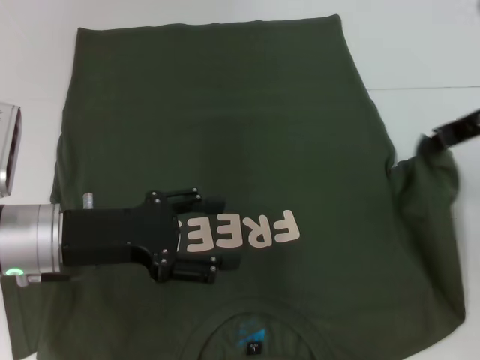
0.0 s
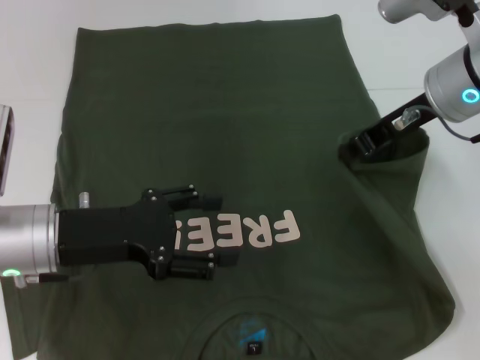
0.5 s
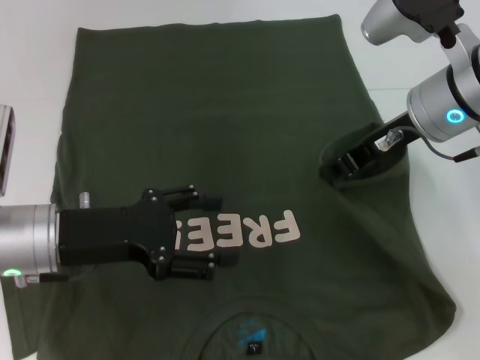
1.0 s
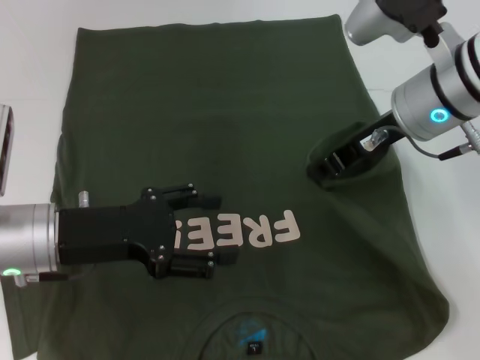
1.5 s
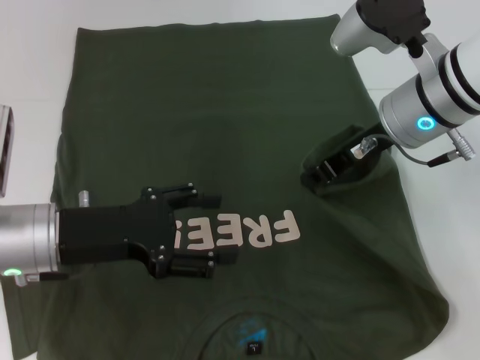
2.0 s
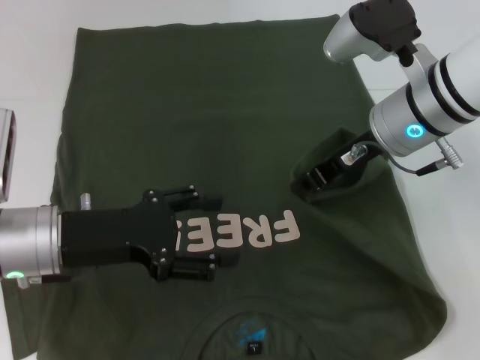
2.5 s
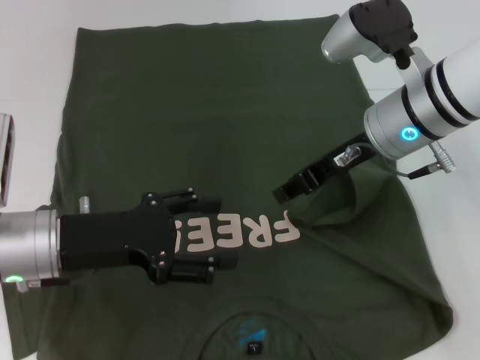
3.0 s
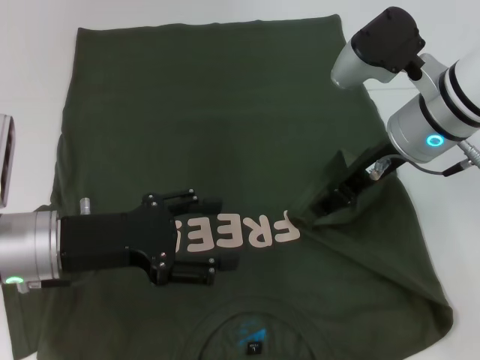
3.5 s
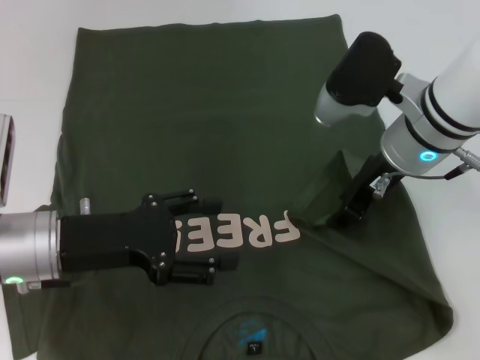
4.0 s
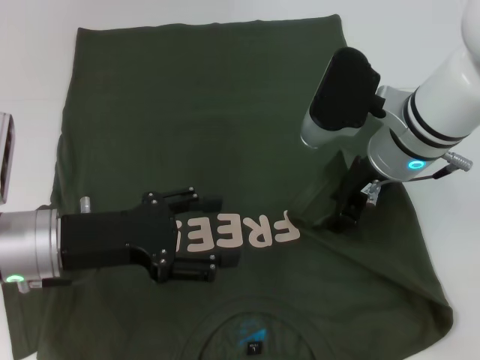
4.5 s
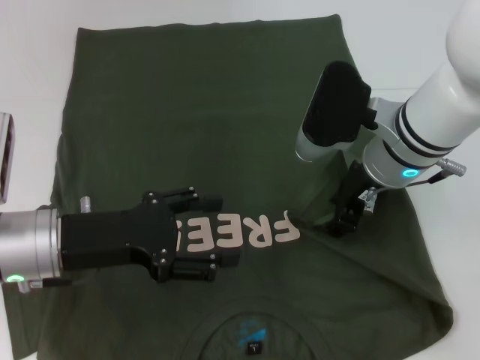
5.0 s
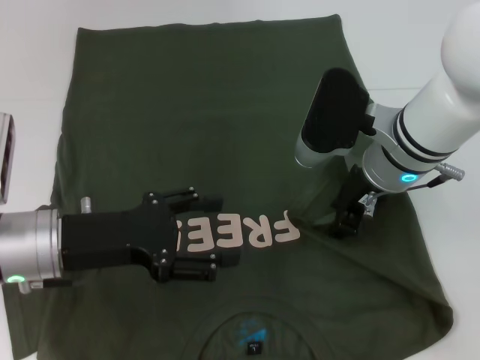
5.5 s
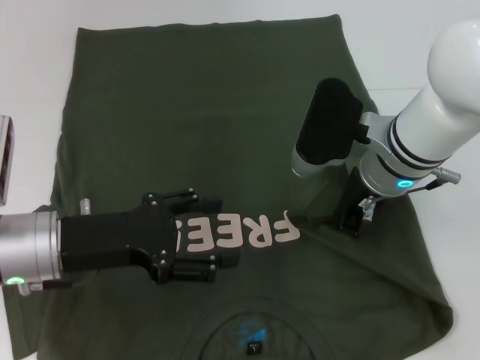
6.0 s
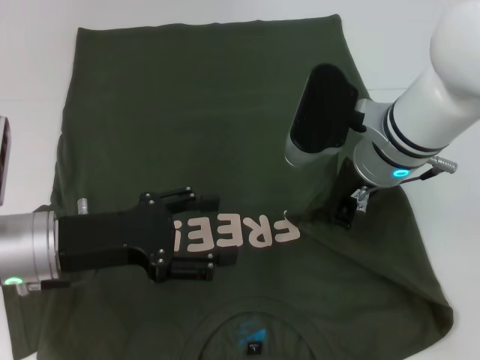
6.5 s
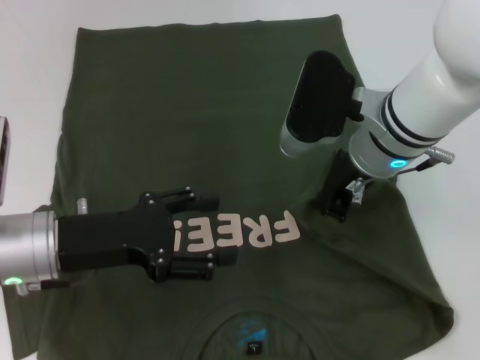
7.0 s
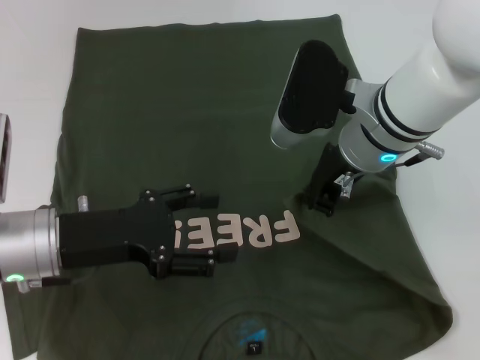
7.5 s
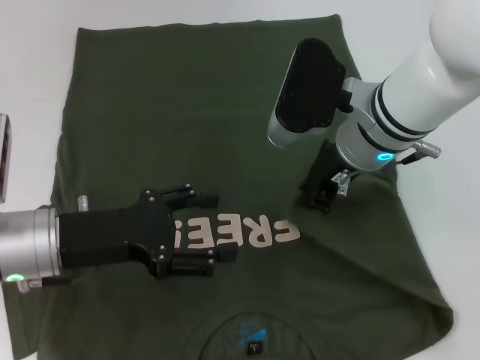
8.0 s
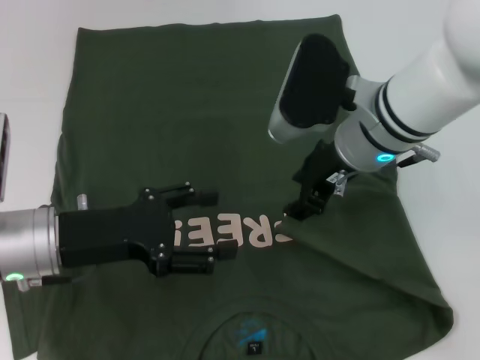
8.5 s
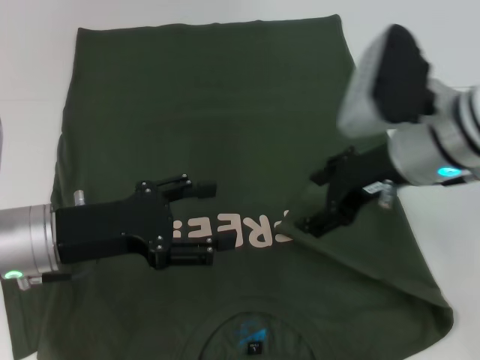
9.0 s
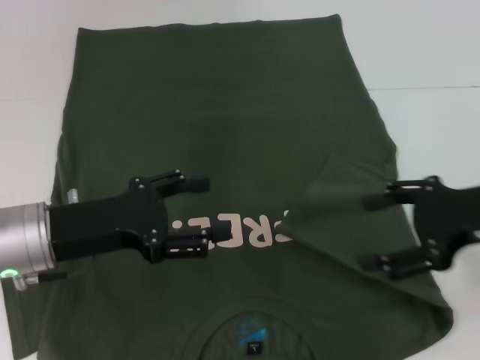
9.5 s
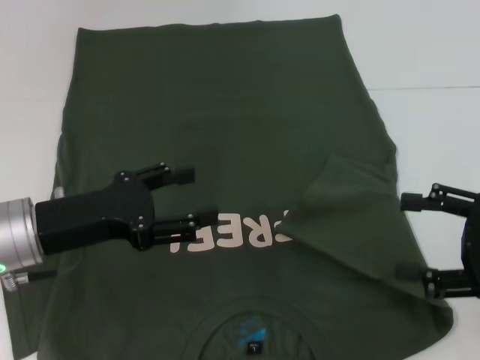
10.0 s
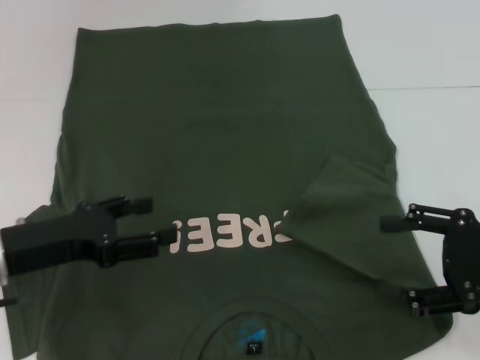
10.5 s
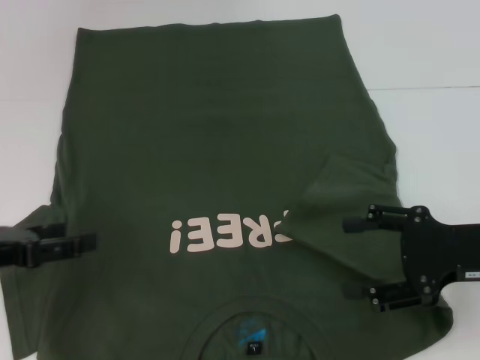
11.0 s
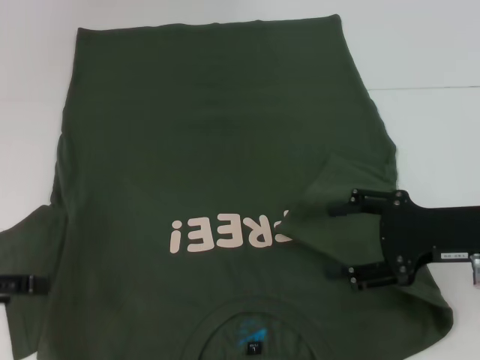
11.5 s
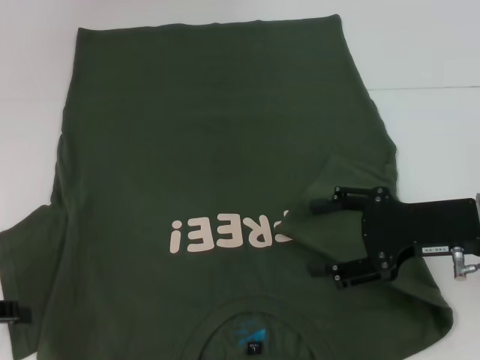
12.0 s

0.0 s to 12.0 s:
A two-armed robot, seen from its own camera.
Step, 0.0 to 8.5 s: Fold the bottom right sleeve with your right hand.
0.0 to 2.0 s: The right gripper is displaced to the left by some 10 cm.
2.0 to 4.0 s: The right gripper opens.
4.0 to 6.0 s: The right gripper closes up.
6.0 to 8.0 s: The grippers make only small movements.
8.0 to 10.0 s: The right gripper goes some 25 cm to the right and backward, and opens up.
10.0 to 12.0 s: The right gripper heads to the left and forward, covering roughly 10 cm; the left gripper is displaced to the left and backward by about 15 cm.

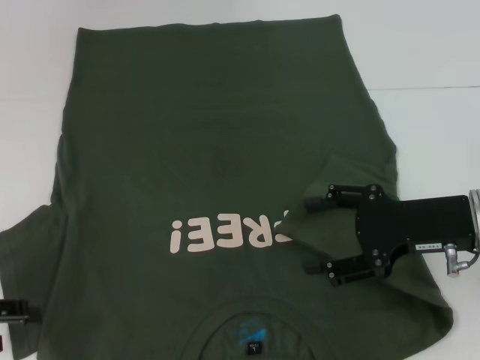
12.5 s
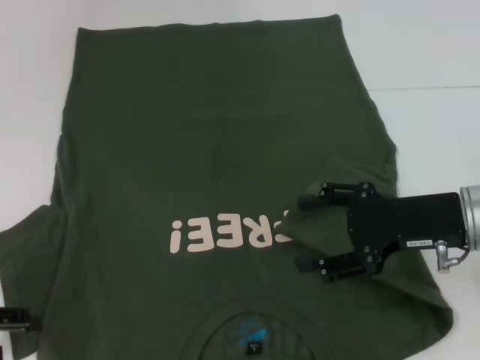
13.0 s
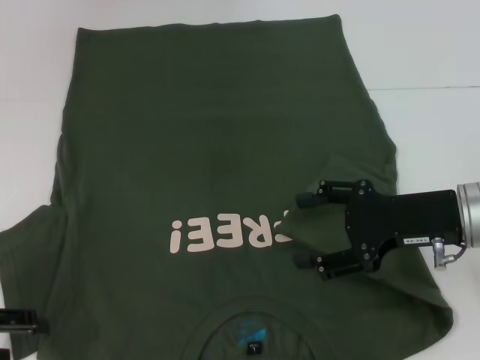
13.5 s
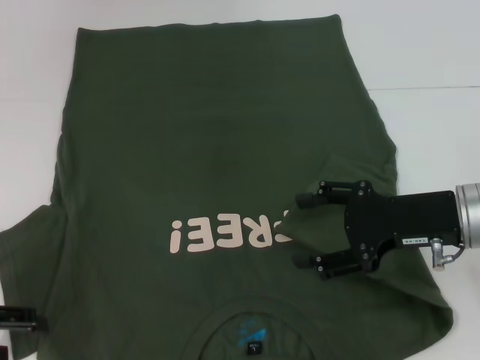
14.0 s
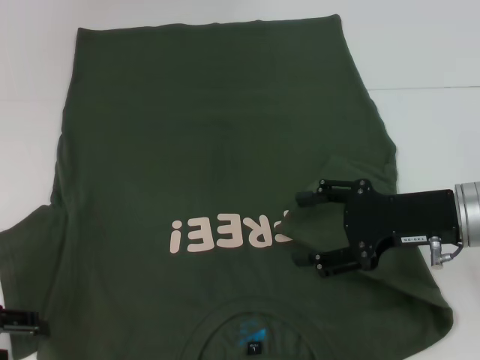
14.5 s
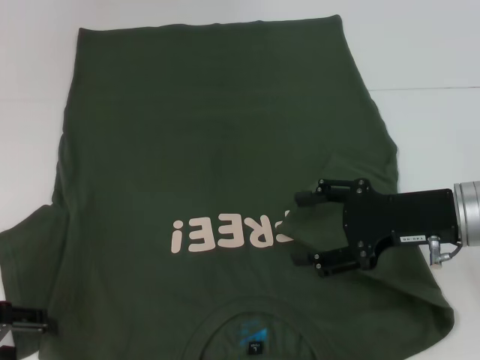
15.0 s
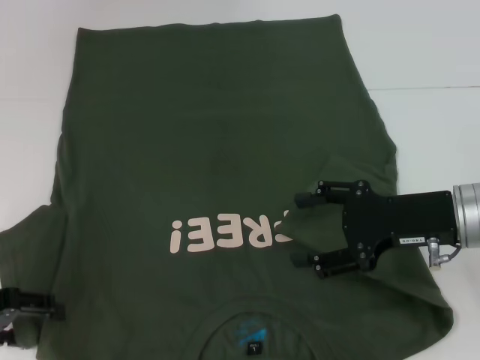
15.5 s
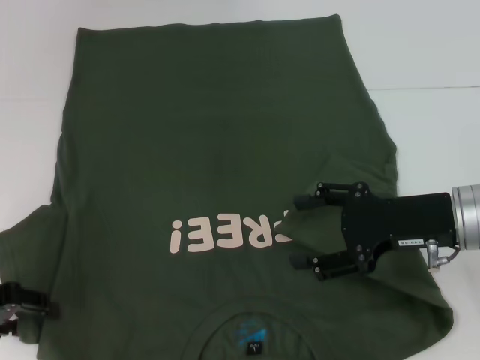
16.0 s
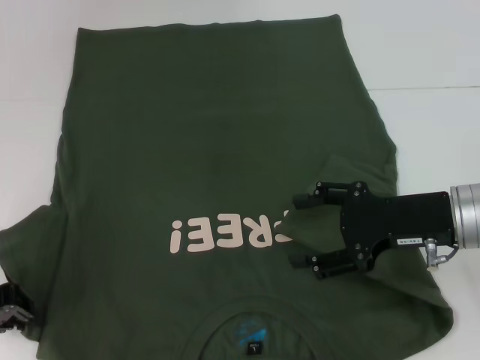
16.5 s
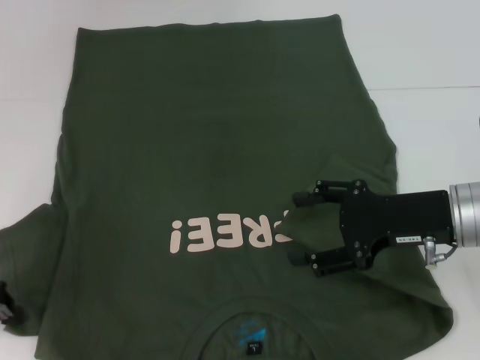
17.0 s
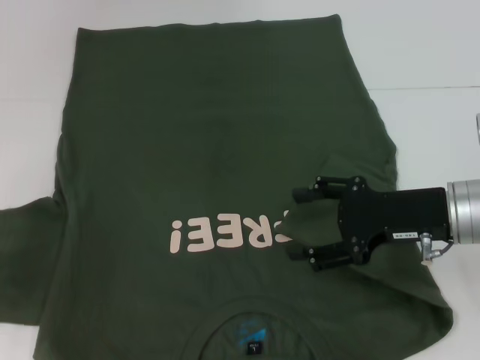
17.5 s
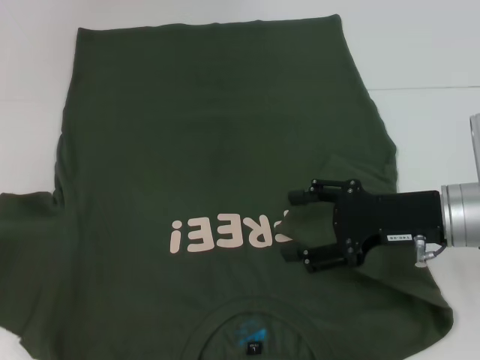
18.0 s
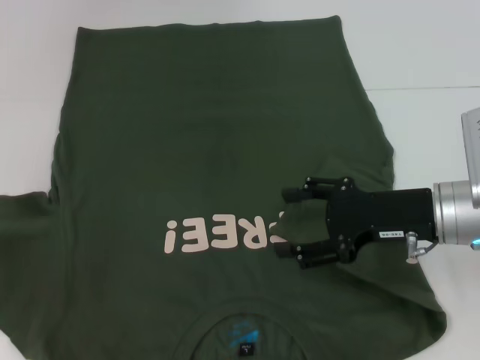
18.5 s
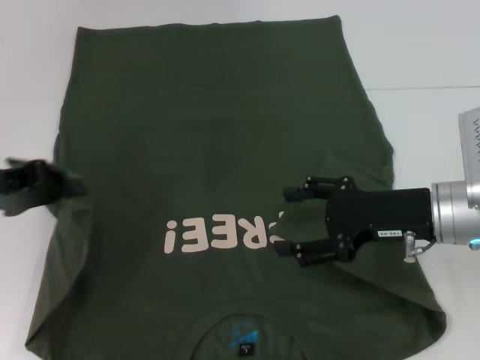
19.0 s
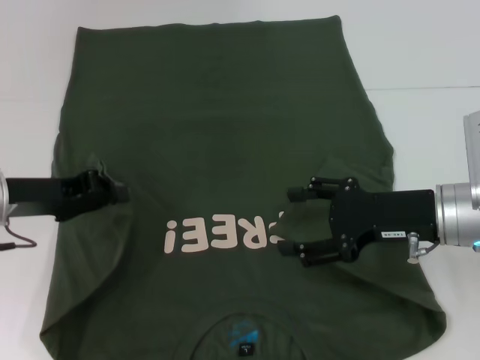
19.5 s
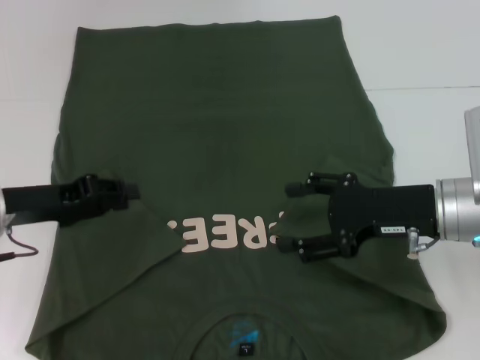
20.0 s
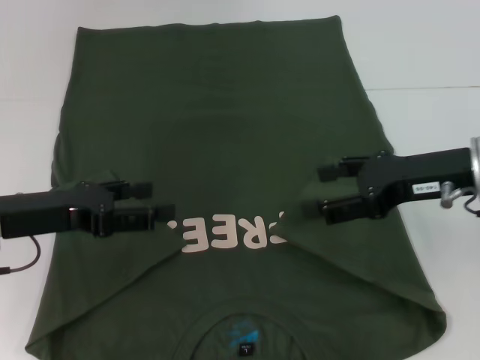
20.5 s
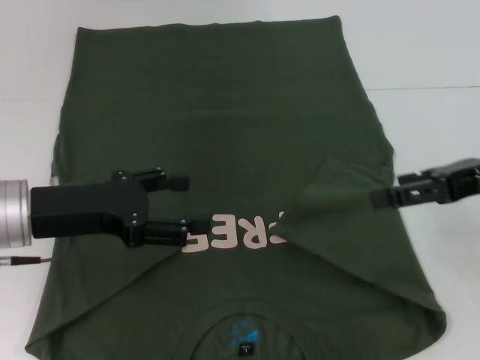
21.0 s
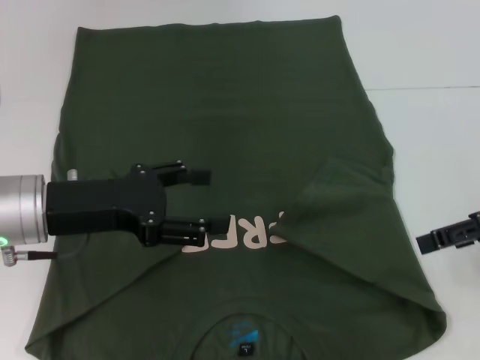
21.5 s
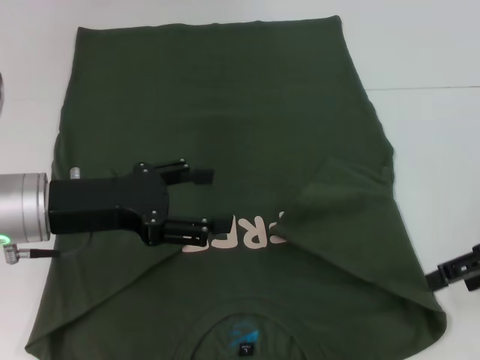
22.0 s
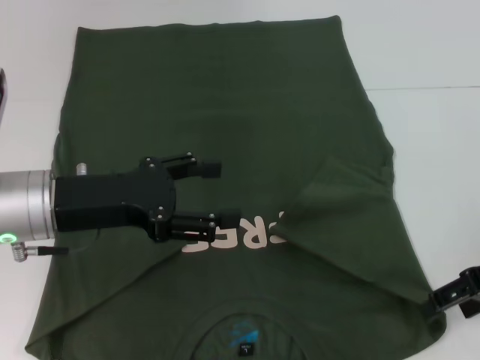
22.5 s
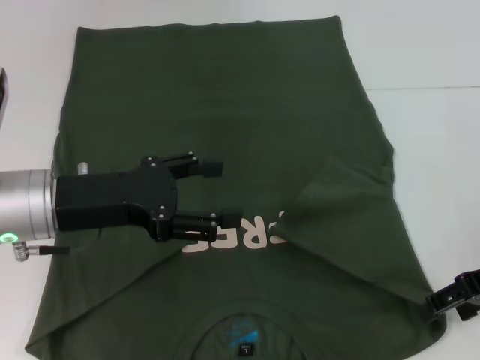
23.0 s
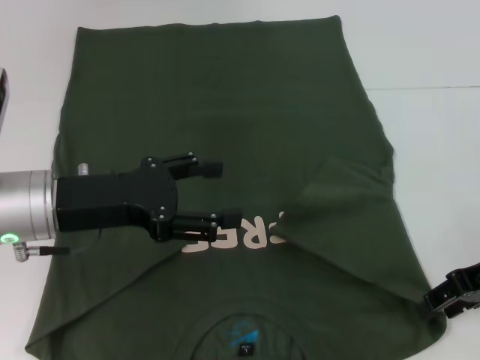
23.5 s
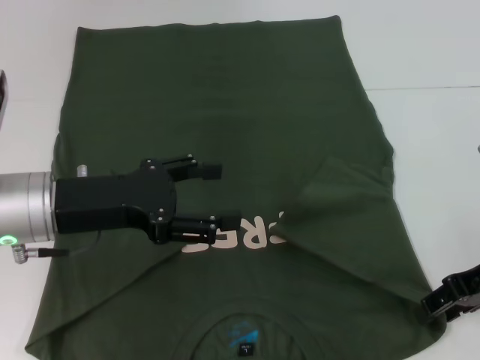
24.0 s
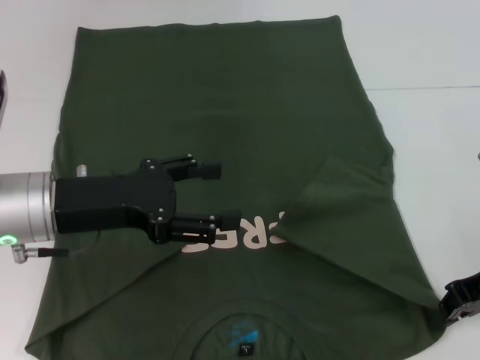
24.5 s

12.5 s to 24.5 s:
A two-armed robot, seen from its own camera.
Step, 12.5 to 20.0 s: Fold the bottom left sleeve with your left hand.
12.5 to 14.5 s: The grippers stay close to where they were, moving slightly.
14.5 to 16.5 s: The left gripper closes.
16.5 to 18.5 s: The left gripper travels to the left by approximately 5 cm, and closes.
18.5 to 20.5 s: The left gripper travels to the right by about 15 cm, and opens up, while the right gripper shifts approximately 5 cm upward.
20.5 to 22.5 s: The two grippers go roughly 5 cm to the right.
22.5 to 24.5 s: The right gripper closes its fingers.

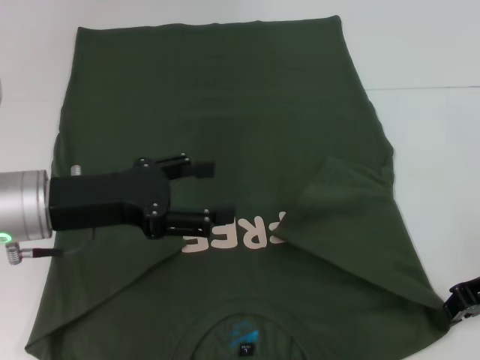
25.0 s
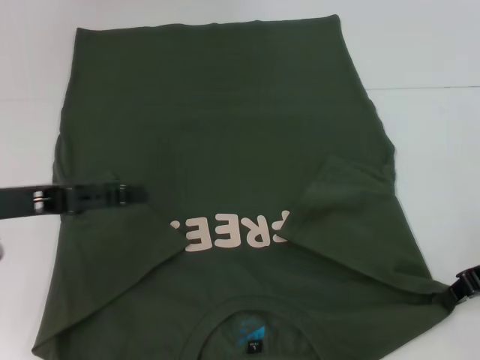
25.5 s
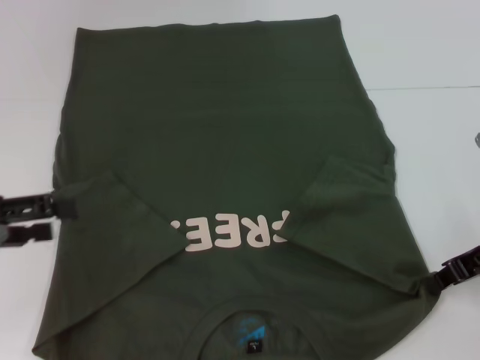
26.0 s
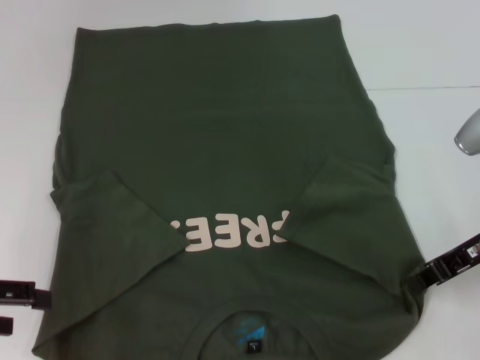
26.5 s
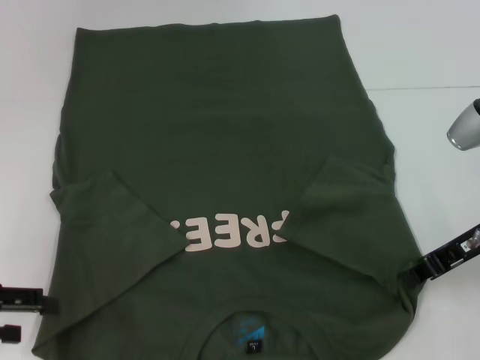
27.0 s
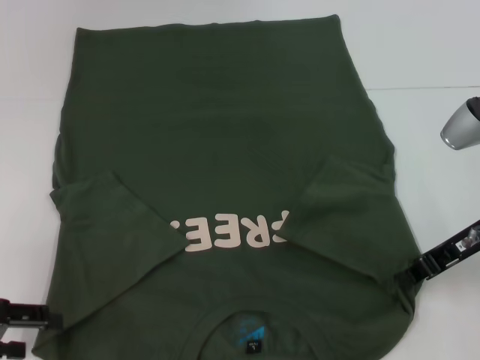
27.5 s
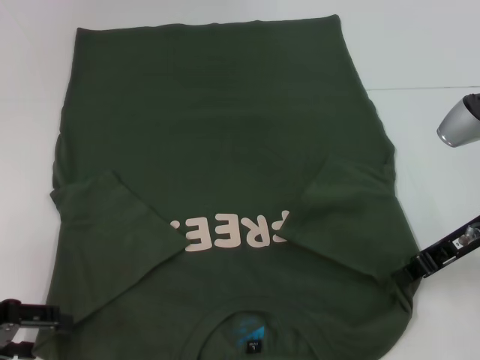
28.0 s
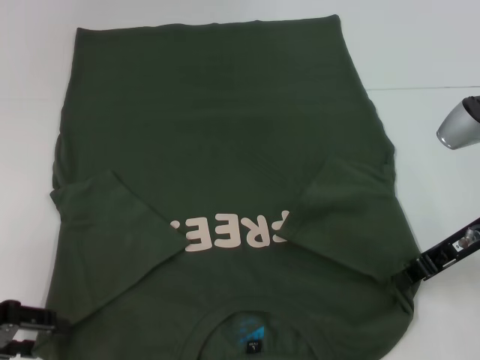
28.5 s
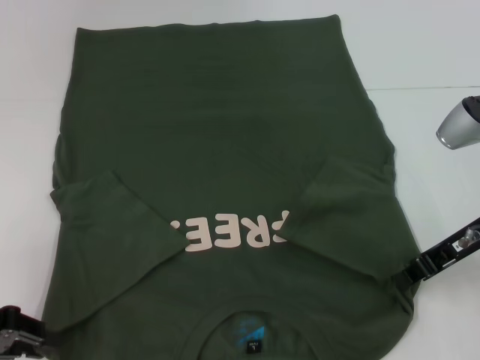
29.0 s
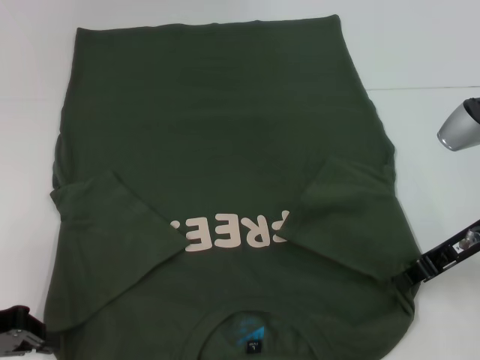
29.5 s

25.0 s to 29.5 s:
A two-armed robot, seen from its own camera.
25.0 to 27.0 s: The left gripper heads to the left and backward, covering some 15 cm.
27.0 to 29.5 s: The left gripper closes up.
